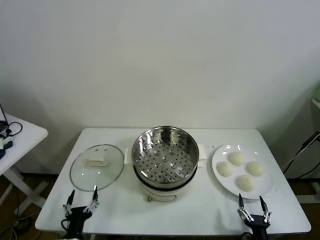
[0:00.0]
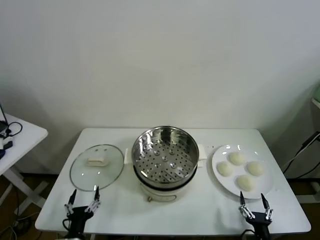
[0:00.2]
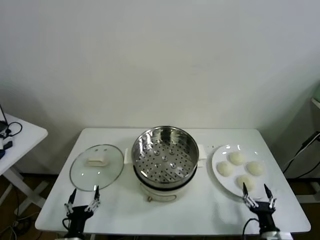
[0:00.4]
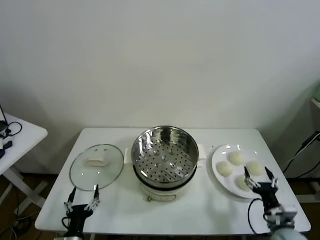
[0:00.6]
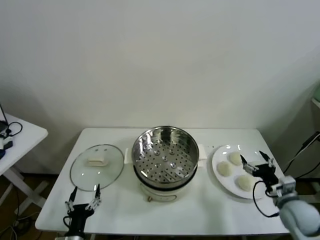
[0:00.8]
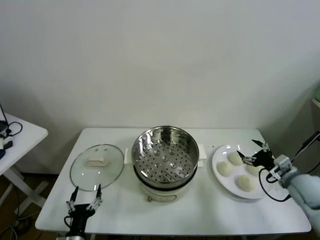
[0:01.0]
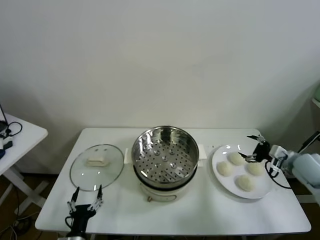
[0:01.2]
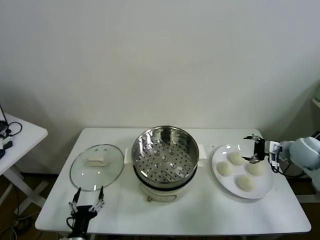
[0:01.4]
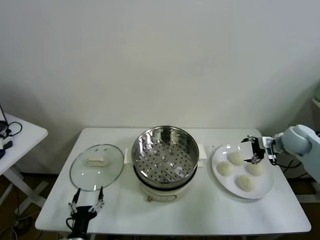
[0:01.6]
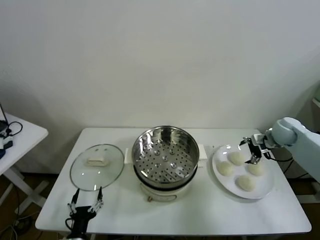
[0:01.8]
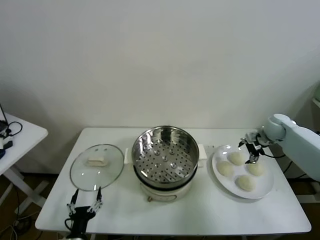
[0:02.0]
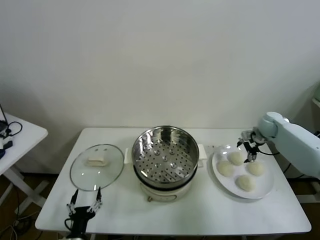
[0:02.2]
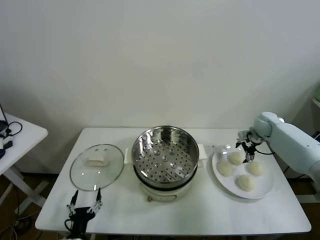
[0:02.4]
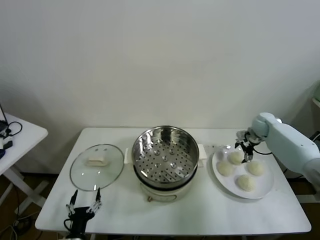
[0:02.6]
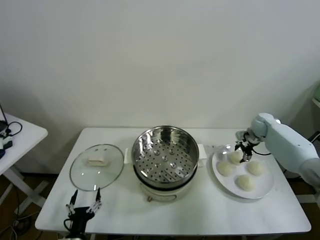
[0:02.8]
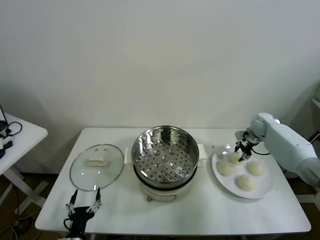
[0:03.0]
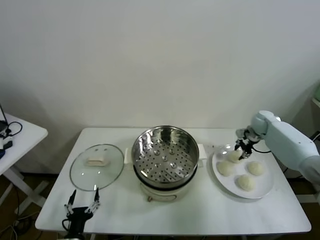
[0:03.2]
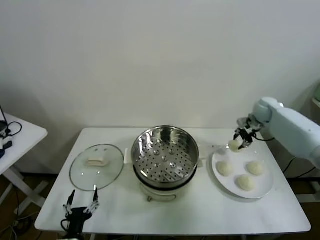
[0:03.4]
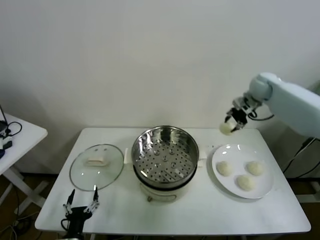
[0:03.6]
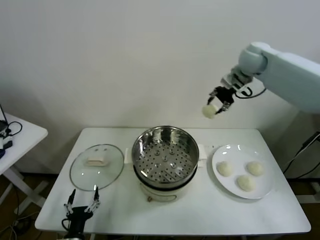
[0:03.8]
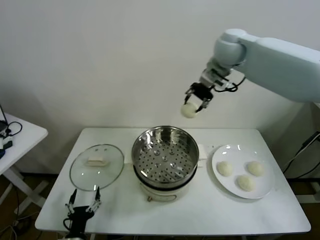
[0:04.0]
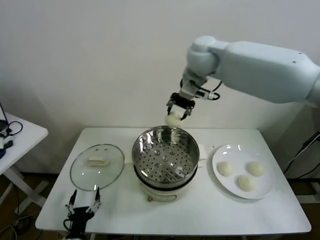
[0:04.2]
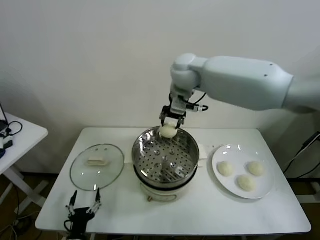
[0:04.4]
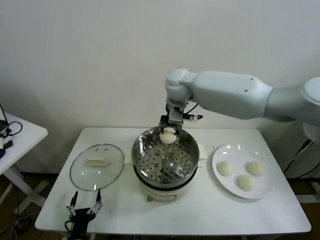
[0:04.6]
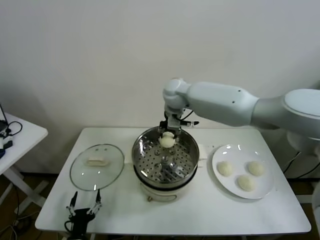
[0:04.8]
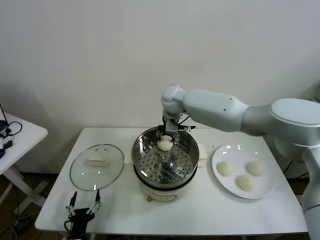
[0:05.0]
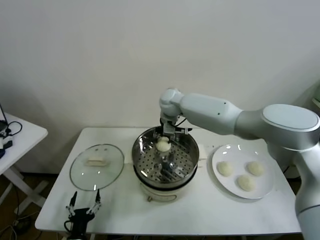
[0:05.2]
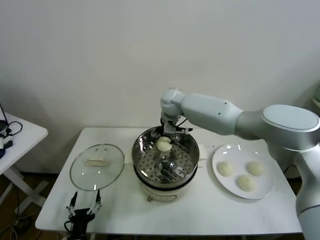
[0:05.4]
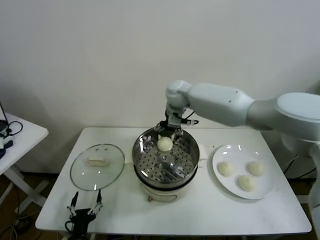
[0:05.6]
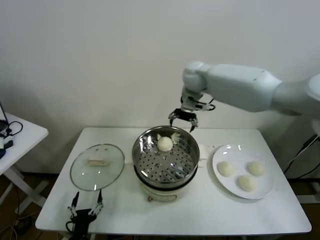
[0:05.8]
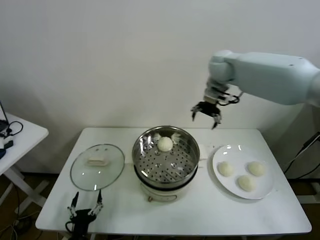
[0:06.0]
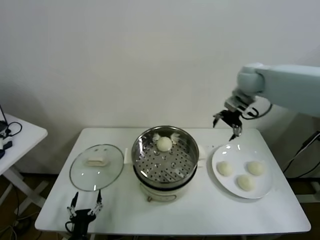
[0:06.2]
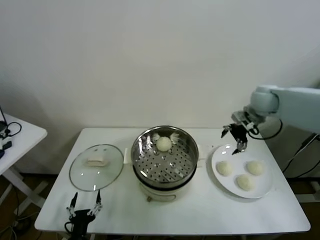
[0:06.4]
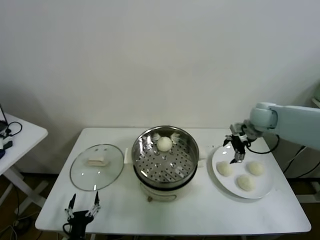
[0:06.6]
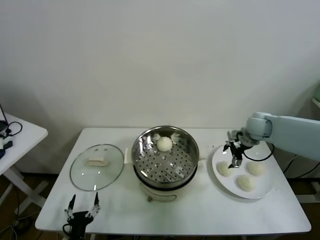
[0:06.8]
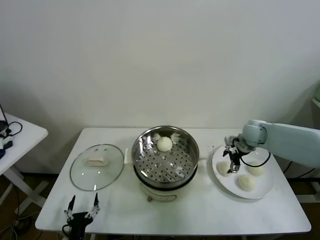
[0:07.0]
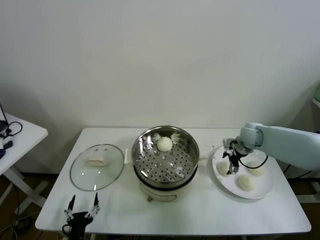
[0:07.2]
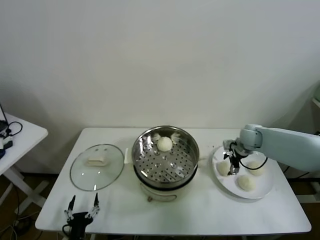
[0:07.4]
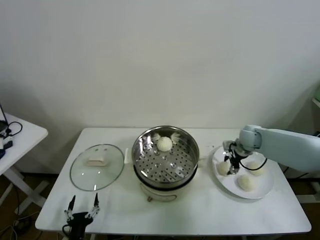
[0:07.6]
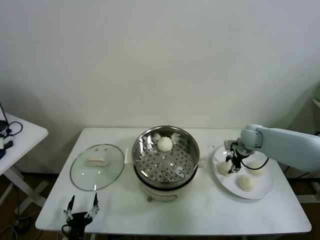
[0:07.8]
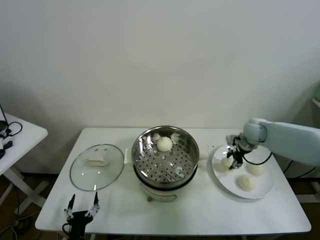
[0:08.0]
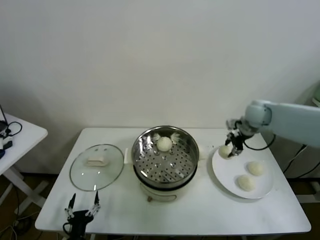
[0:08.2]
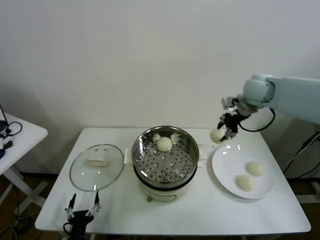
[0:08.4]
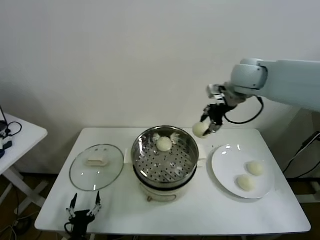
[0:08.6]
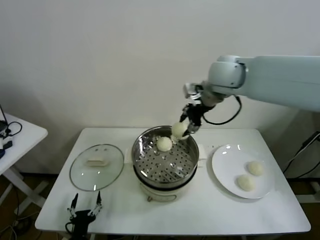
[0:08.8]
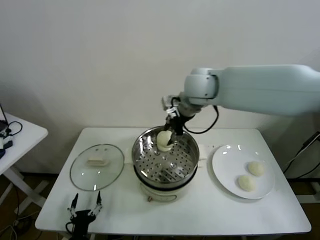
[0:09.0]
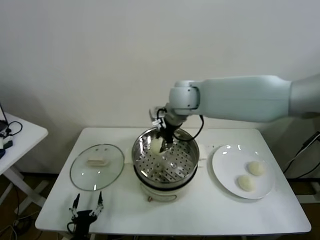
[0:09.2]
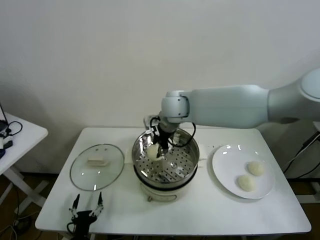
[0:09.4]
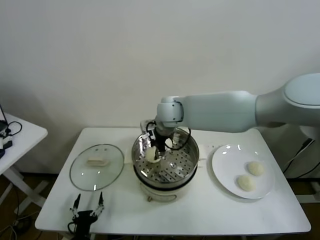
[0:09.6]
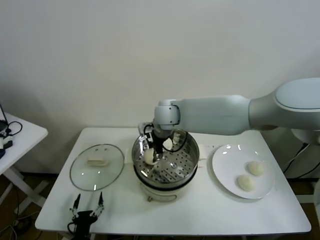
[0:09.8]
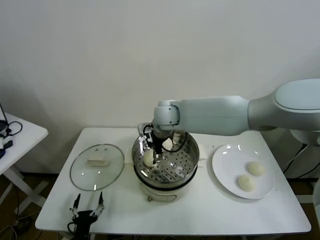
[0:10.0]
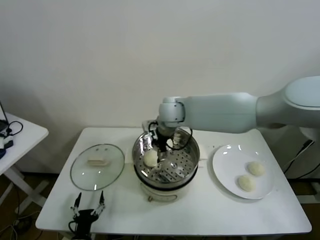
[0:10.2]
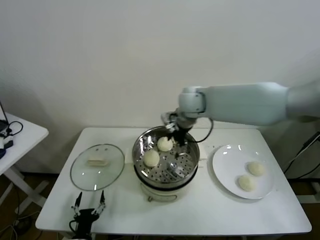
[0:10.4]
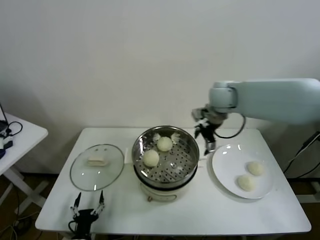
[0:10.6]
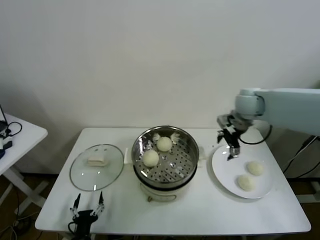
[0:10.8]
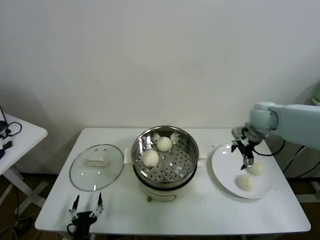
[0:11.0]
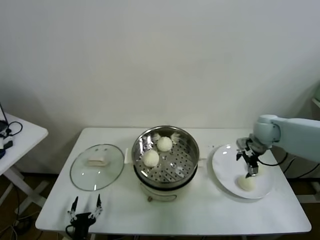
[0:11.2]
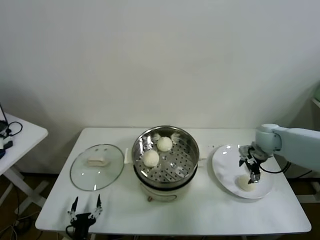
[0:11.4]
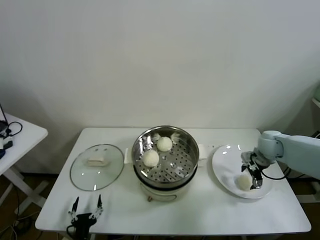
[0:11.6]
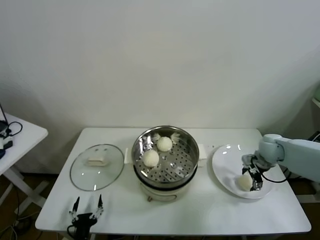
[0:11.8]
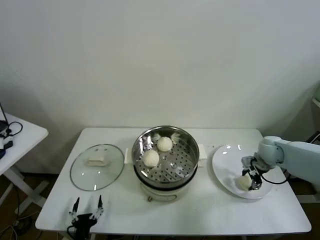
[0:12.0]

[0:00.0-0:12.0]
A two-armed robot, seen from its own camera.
Task of the whole recording: take steamed baozi put them in steamer.
Step, 0:00.0 to 0:02.8: Grasp the baozi in the plate with right gripper.
Step, 0:03.0 to 0:05.4: Place the baozi on the steamer with right gripper.
Step, 0:05.6 to 0:07.6: Grasp the baozi in the plate with right gripper.
Step, 0:07.8 to 0:09.8: Place the baozi on the steamer with right gripper.
Step, 0:10.0 to 0:12.0: Grasp the baozi in the plate with right gripper.
0:01.6 to 0:03.0: The right gripper heads forward and downward, covering some 10 cm, and closes up.
0:03.0 to 0:04.4: The right gripper goes approximately 40 cm to the left and upward.
0:04.4 to 0:06.0: The right gripper heads to the right, covering roughly 15 cm, and opens.
0:06.0 to 0:07.6: The right gripper moves downward and to the right, roughly 30 cm, and closes up.
0:07.6 to 0:09.0: The right gripper goes about 35 cm to the left and upward.
0:09.0 to 0:10.4: The right gripper is displaced downward by some 5 cm, and opens up.
0:10.4 to 0:12.0: The right gripper is displaced to the right and downward by roughly 35 cm, and closes up.

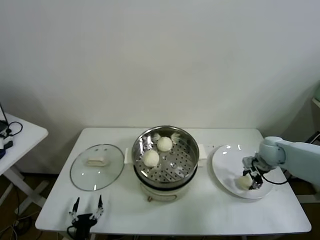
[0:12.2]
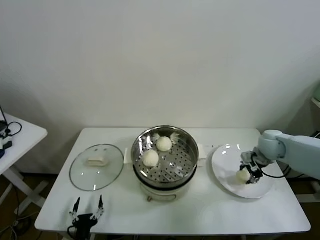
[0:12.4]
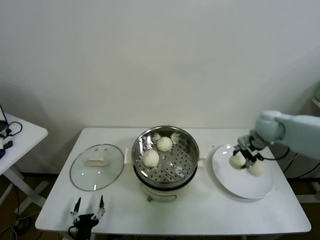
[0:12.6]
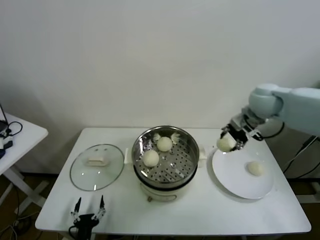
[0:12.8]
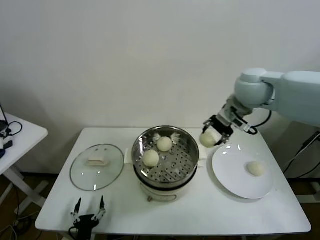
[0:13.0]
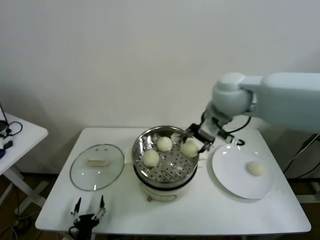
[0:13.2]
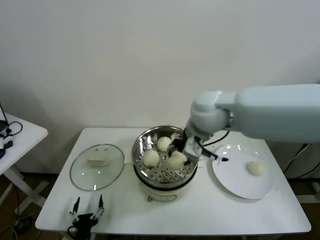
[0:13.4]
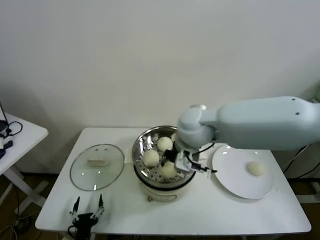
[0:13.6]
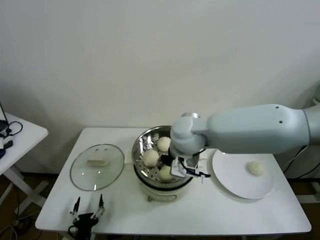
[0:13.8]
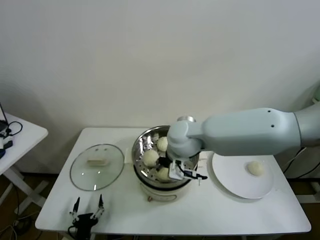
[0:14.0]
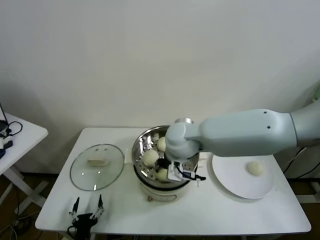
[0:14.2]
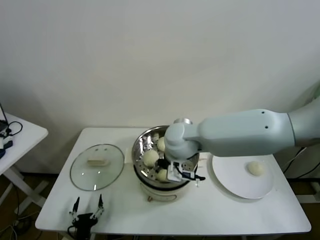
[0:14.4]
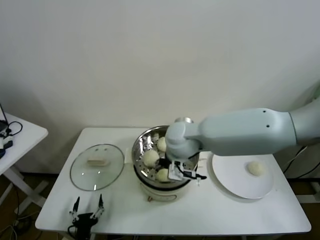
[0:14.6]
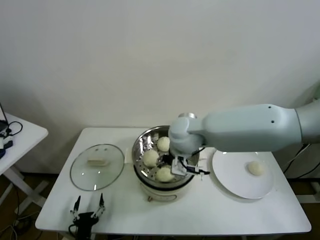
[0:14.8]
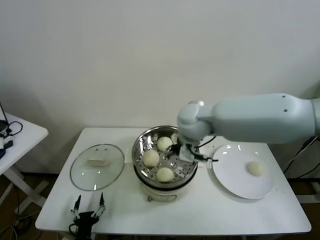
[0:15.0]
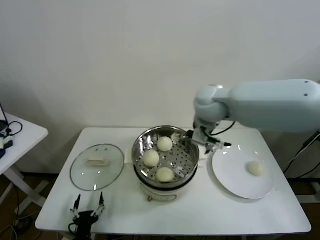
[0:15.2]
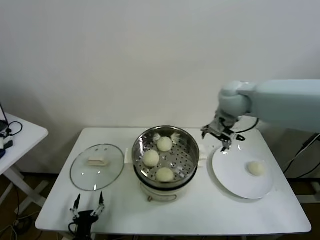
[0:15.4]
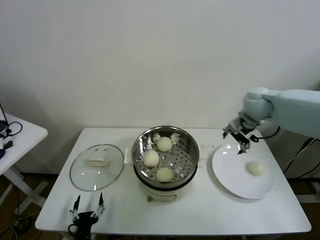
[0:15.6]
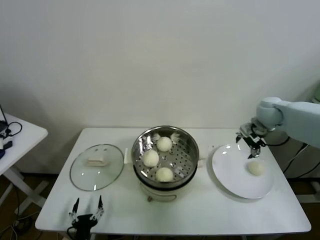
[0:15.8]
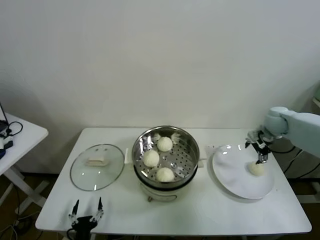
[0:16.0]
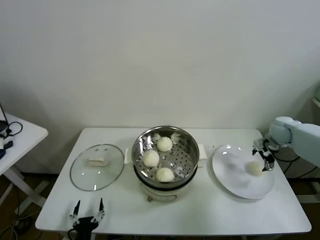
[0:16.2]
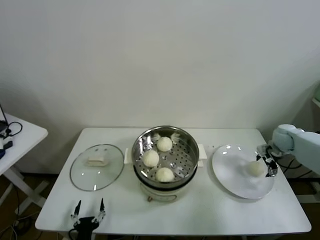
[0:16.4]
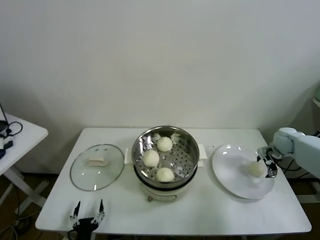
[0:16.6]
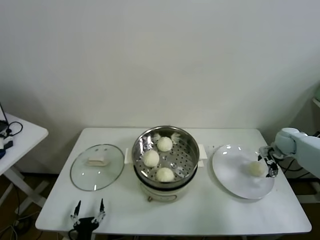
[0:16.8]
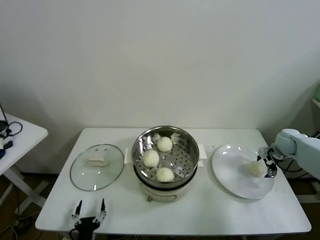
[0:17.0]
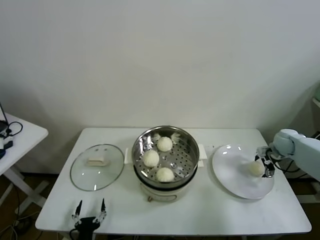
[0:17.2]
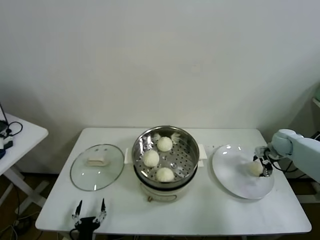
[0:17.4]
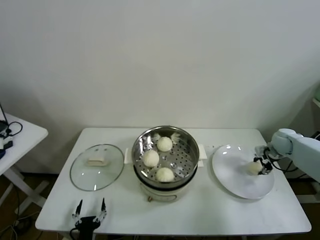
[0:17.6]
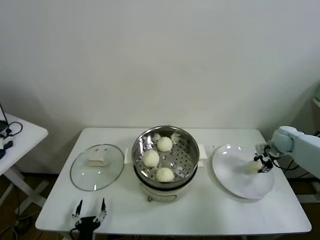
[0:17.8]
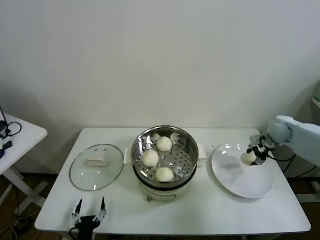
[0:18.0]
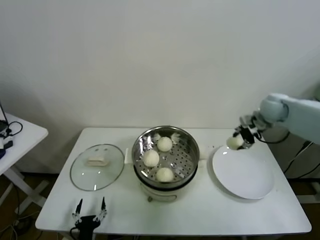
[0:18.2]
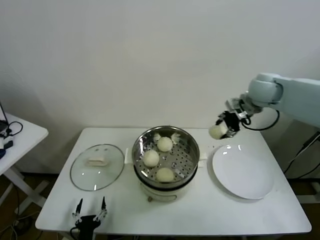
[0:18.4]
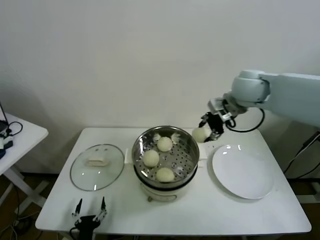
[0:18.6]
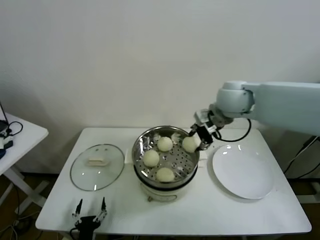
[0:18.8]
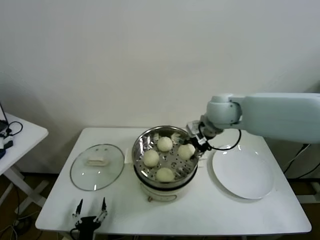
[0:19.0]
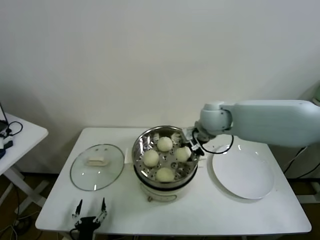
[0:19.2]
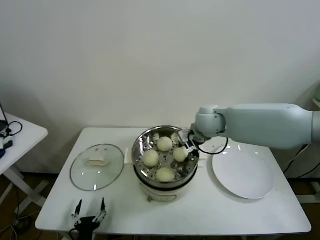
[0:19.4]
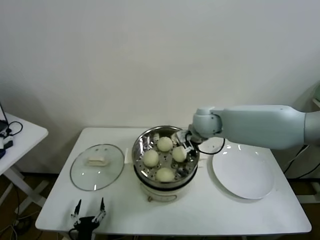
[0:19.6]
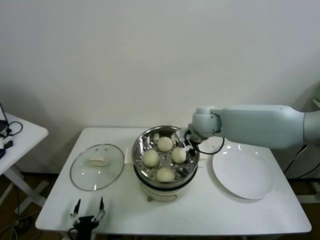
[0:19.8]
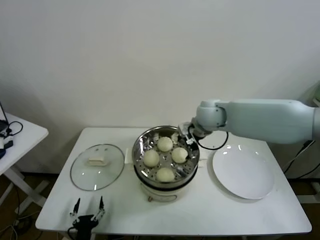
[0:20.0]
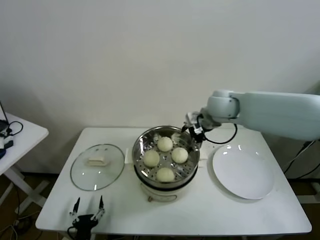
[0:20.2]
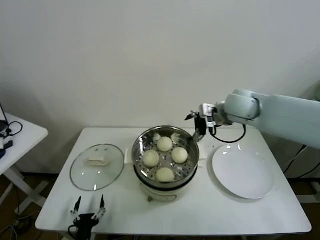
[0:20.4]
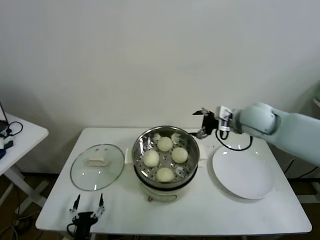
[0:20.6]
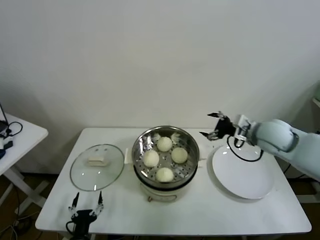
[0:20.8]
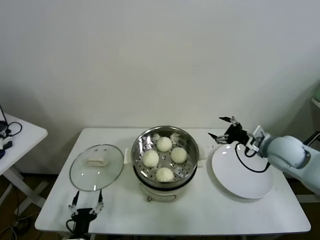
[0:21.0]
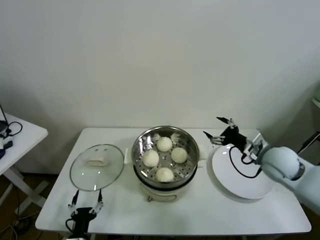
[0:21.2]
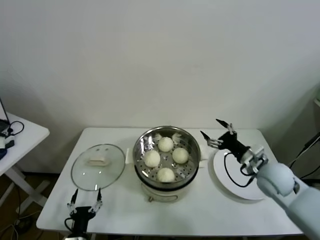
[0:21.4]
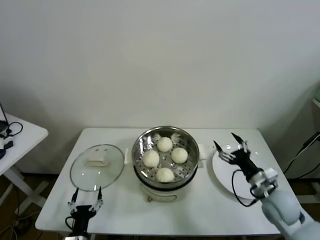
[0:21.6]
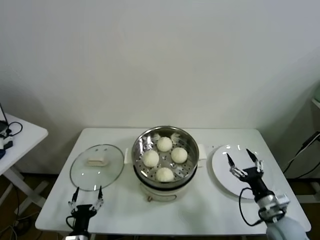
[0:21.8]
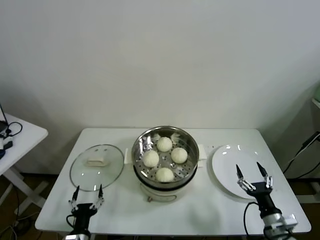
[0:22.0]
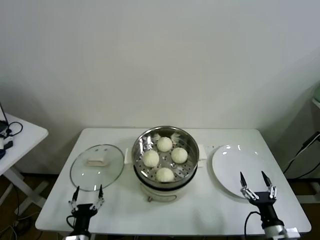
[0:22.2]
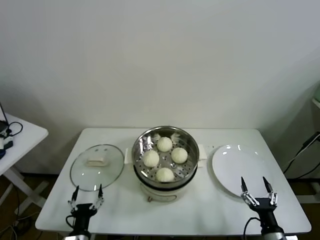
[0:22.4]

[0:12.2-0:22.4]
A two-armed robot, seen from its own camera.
Task of the whole recording: take steamed baozi put them in steamer.
Step, 0:12.2 to 0:14.6: Place the baozi on the steamer with right gripper.
Step, 0:14.8 to 0:17.4: Grasp the baozi in the plate with right gripper.
Step, 0:17.8 to 0:19.6: Place the baozi on the steamer with right gripper.
0:12.2 to 0:13.6: The right gripper moves to the left and upward, approximately 35 cm.
0:13.6 to 0:15.2: The right gripper goes some 5 cm forward, and opens up.
0:15.2 to 0:16.6: The right gripper goes approximately 40 cm to the right and downward.
0:16.6 to 0:18.0: The right gripper shifts by roughly 5 cm, and closes.
0:18.0 to 0:19.4: The right gripper heads to the left, covering approximately 30 cm.
0:19.4 to 0:21.0: The right gripper is displaced to the right and backward by roughly 20 cm, and opens up.
0:21.0 to 0:22.4: The right gripper travels backward and downward by about 35 cm.
